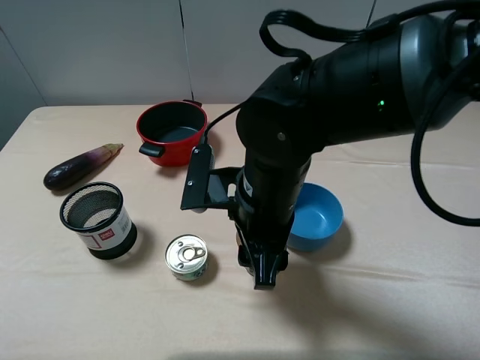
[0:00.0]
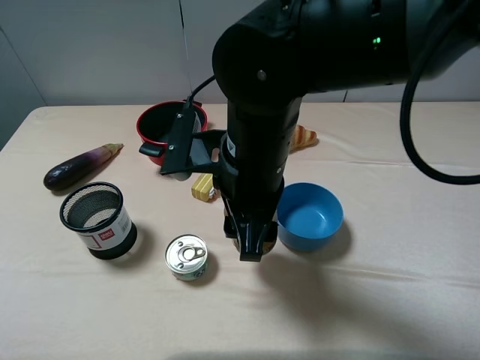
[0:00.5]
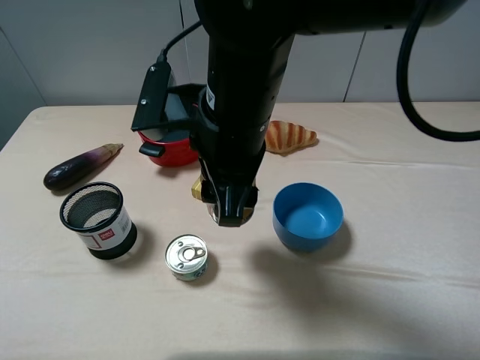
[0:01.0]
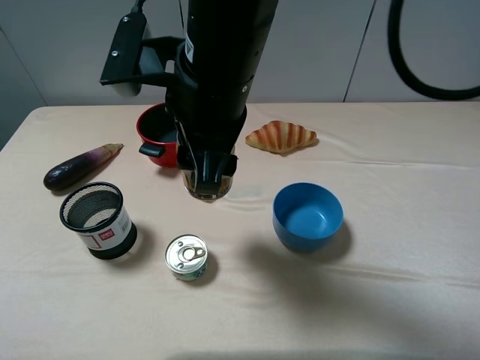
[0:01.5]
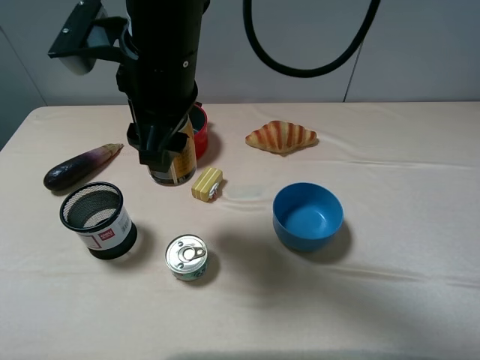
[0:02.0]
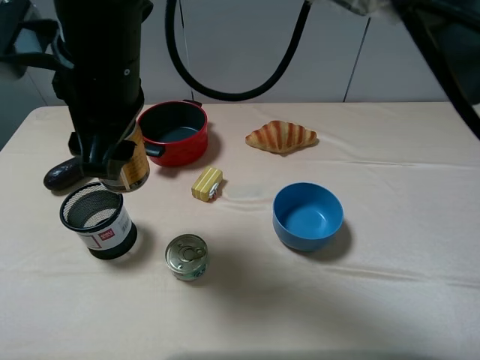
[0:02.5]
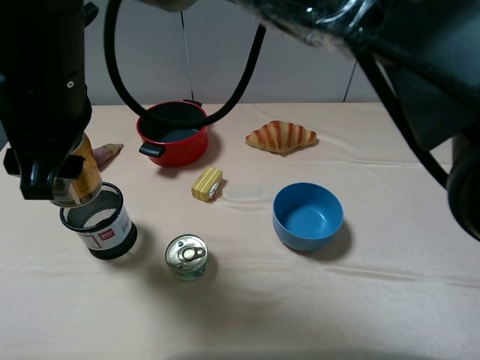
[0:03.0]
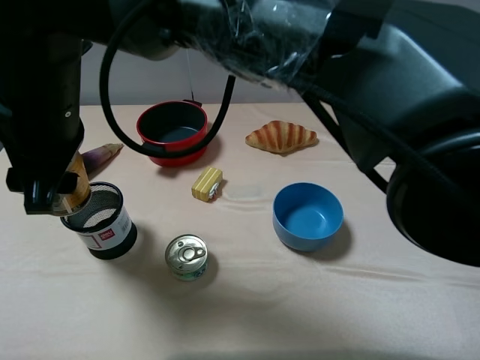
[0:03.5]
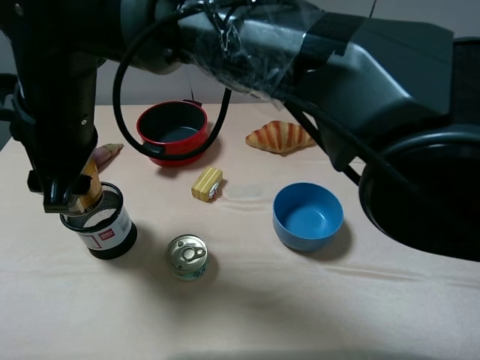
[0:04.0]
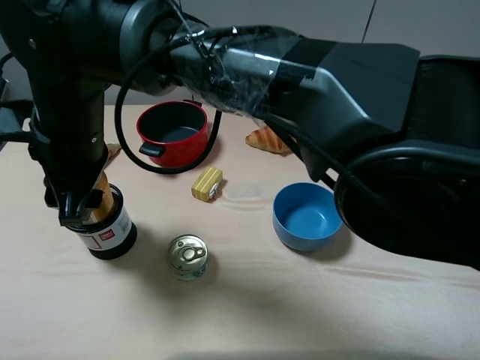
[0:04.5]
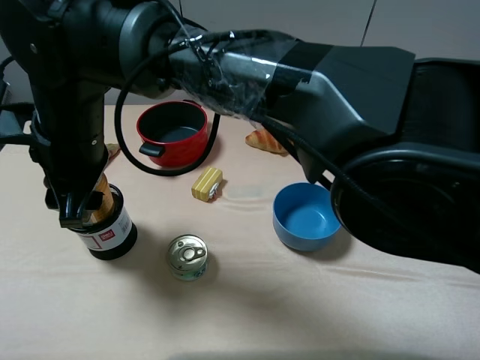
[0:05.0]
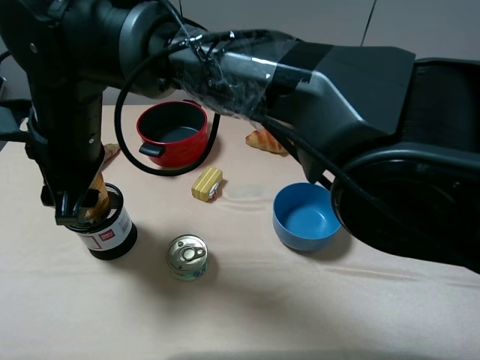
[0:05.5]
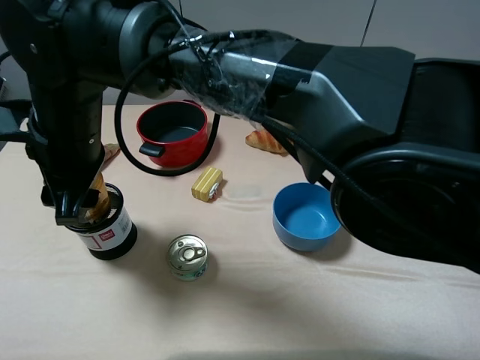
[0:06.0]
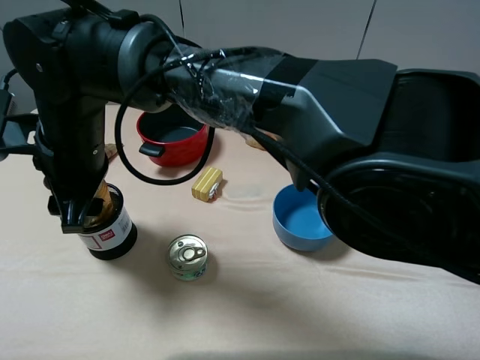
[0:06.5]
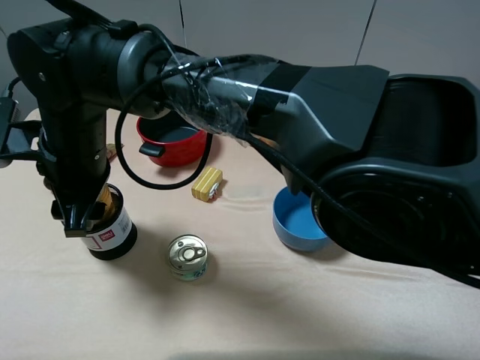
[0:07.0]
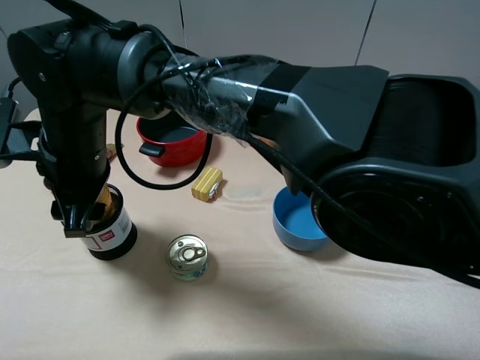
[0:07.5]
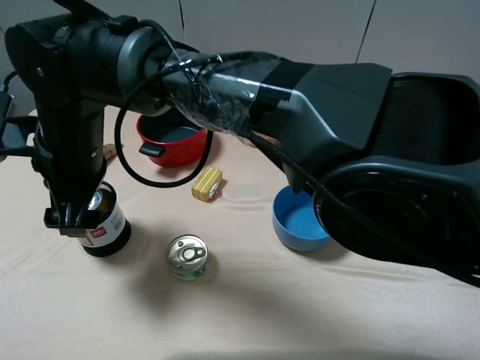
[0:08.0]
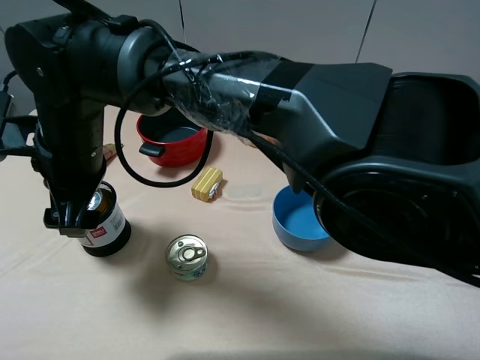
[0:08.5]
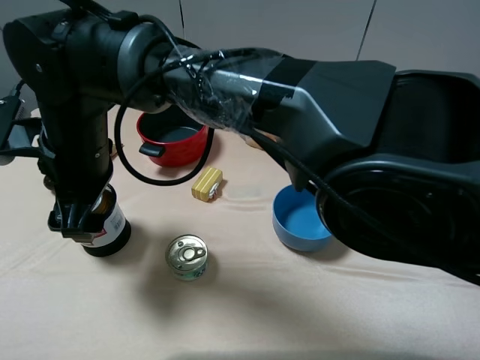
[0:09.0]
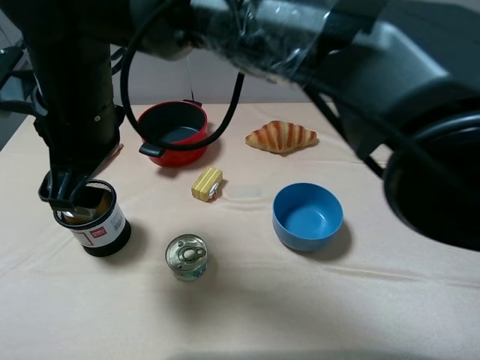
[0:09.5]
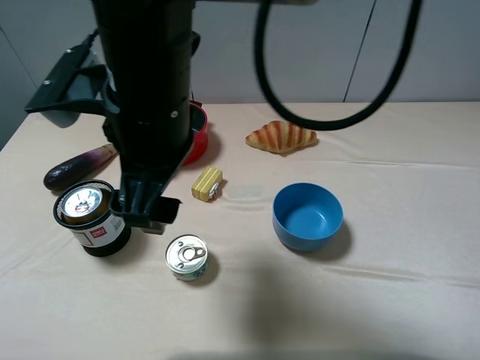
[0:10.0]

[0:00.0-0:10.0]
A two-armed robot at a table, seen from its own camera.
Task of the whole recording: pick up an item with a gripper and place it in a random container on the table.
Step, 0:00.0 to 0:08.5: Place the red bull into the pen container with the right gripper.
0:00.0 to 0:02.0: The right gripper goes about 15 cm upward, to the left and forward.
0:02.0 to 0:04.0: The right gripper travels to the left by some 10 cm.
0:06.0 to 0:08.0: The right gripper opens.
0:08.0 to 0:10.0: The right gripper shifts some 15 cm to the right and upward.

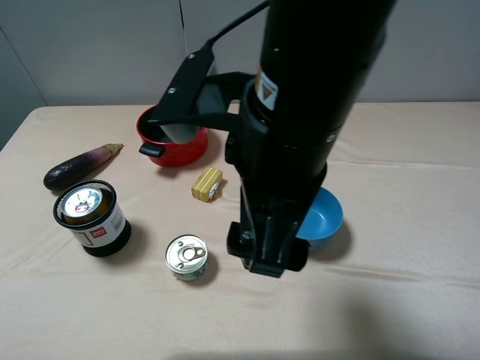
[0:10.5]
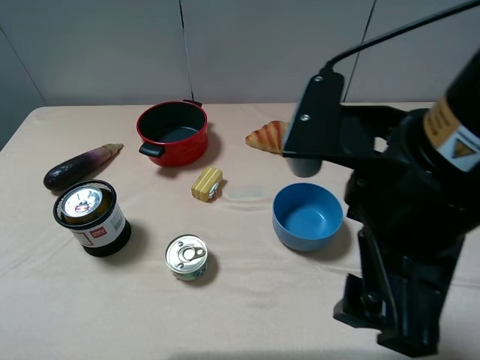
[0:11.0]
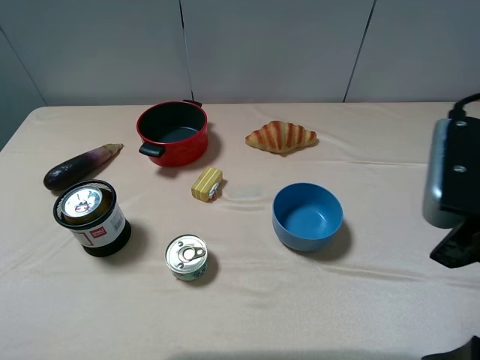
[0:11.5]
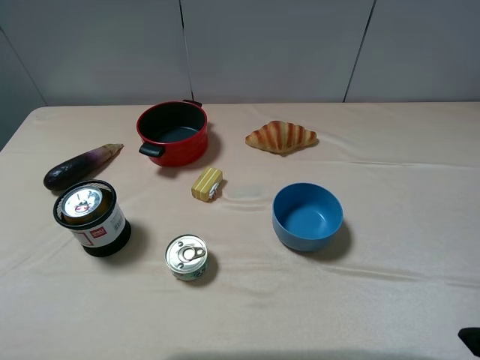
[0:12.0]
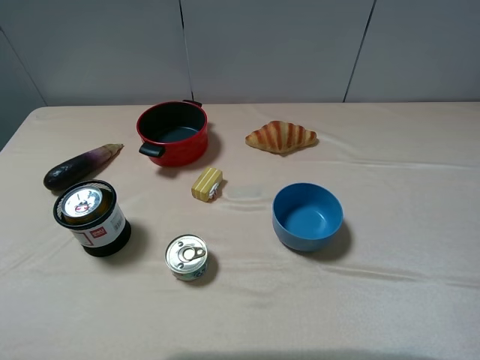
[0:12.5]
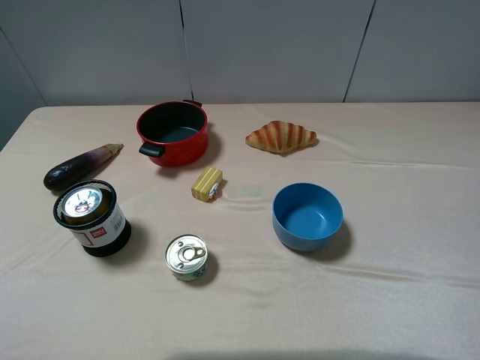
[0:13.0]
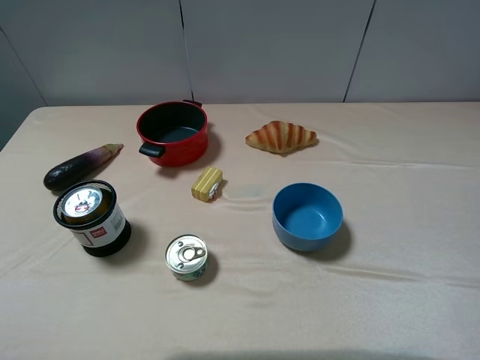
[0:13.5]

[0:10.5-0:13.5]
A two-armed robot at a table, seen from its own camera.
Task of the whole recording: pick up an item with a gripper and place it in a random container on the table.
0:10.5 to 0:12.0: The right gripper heads to the right, covering roughly 25 cm.
